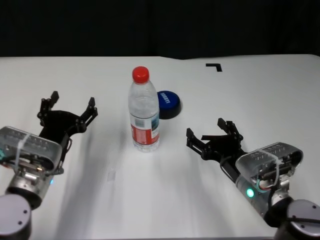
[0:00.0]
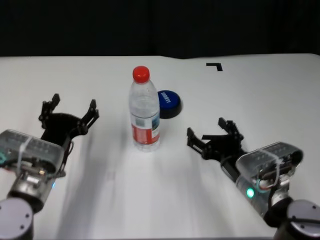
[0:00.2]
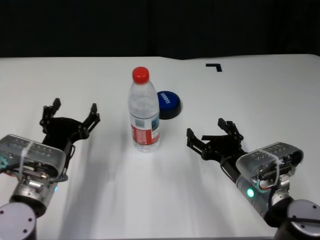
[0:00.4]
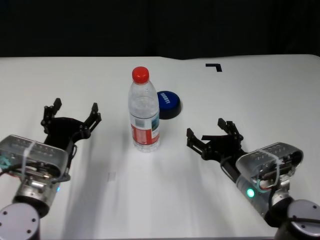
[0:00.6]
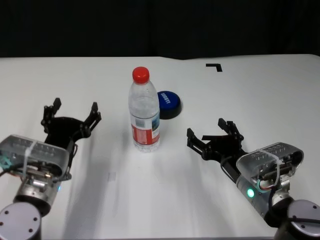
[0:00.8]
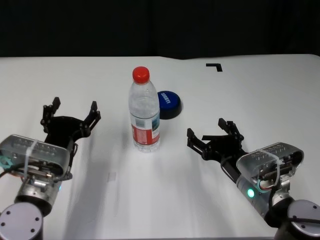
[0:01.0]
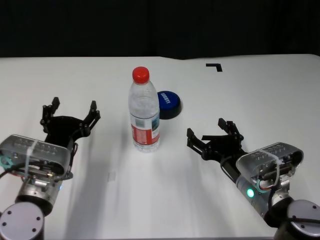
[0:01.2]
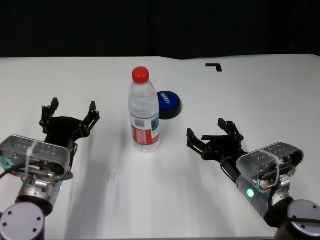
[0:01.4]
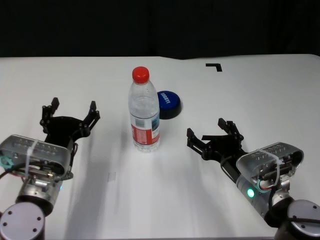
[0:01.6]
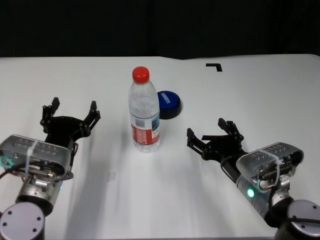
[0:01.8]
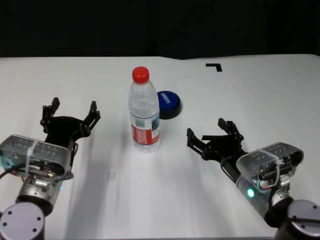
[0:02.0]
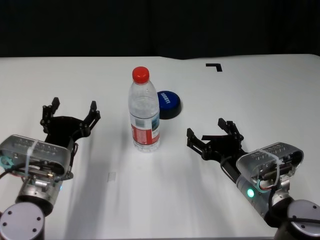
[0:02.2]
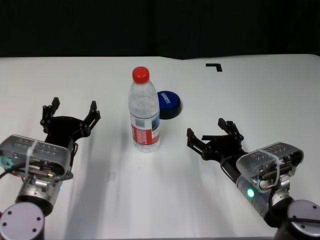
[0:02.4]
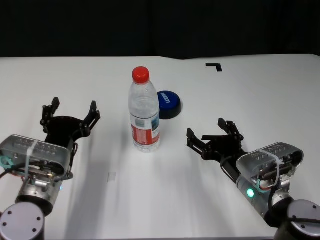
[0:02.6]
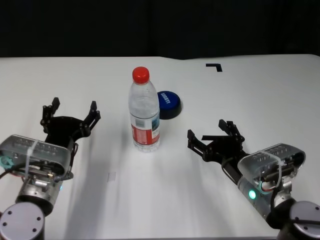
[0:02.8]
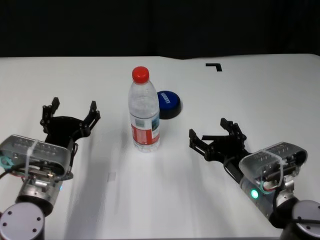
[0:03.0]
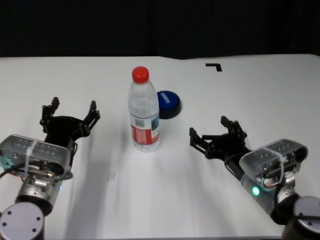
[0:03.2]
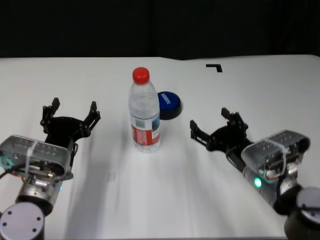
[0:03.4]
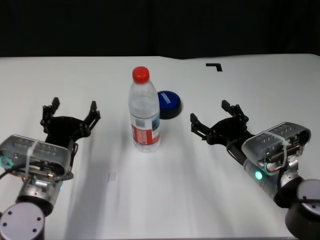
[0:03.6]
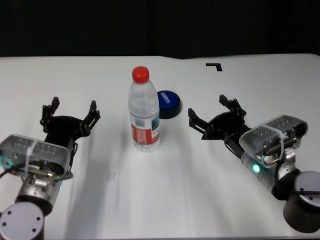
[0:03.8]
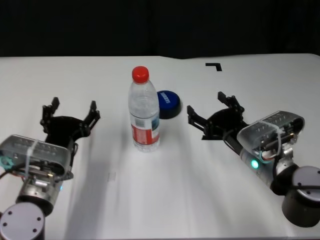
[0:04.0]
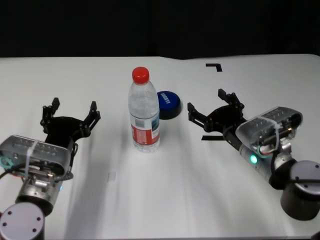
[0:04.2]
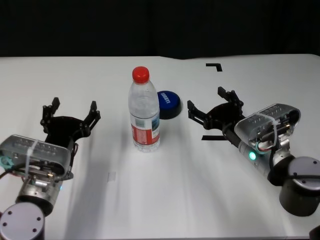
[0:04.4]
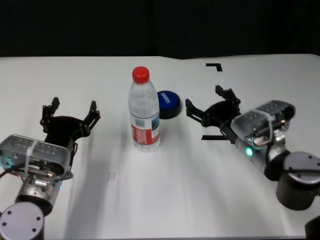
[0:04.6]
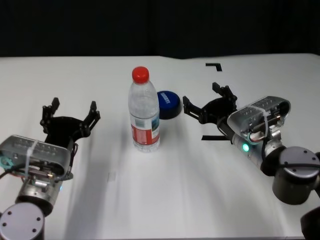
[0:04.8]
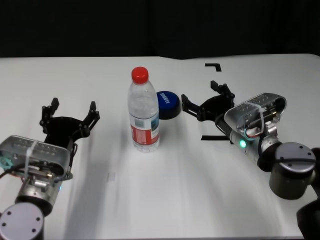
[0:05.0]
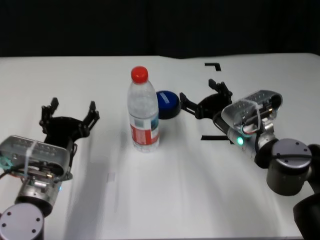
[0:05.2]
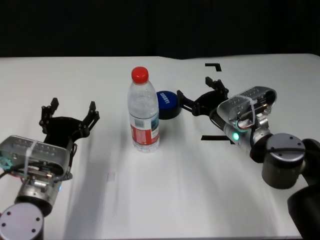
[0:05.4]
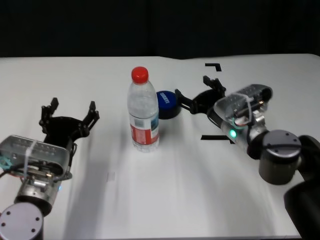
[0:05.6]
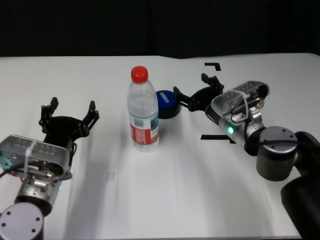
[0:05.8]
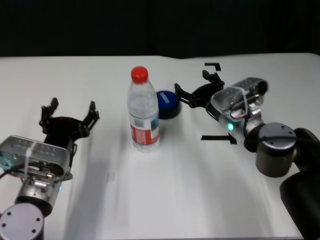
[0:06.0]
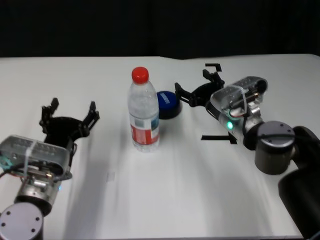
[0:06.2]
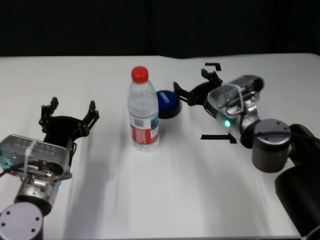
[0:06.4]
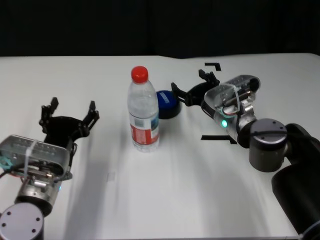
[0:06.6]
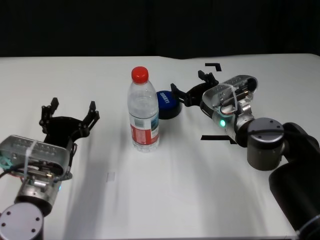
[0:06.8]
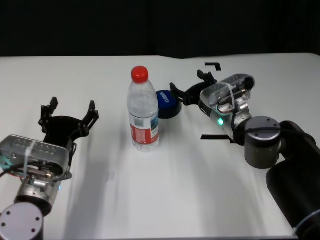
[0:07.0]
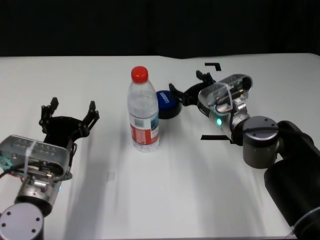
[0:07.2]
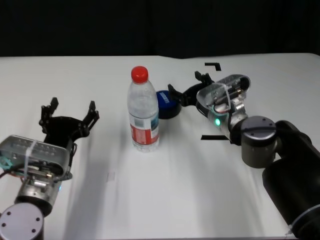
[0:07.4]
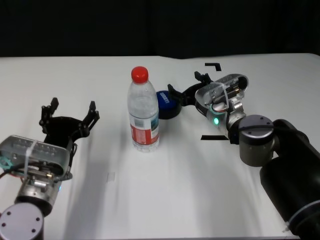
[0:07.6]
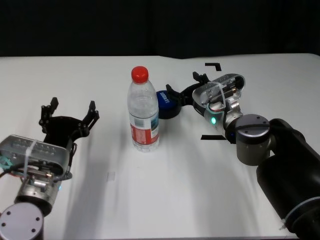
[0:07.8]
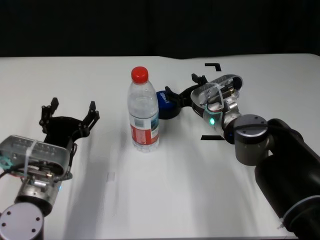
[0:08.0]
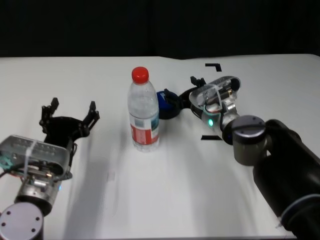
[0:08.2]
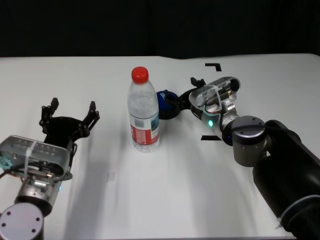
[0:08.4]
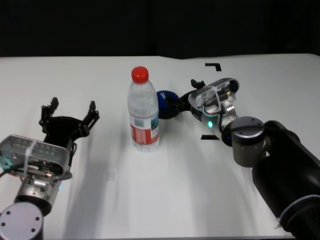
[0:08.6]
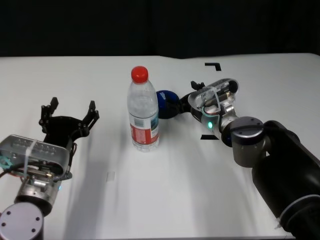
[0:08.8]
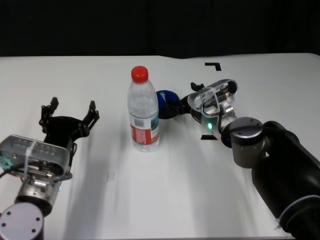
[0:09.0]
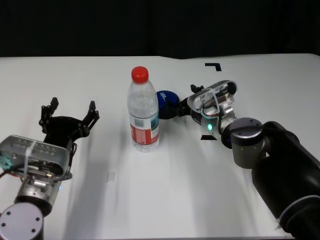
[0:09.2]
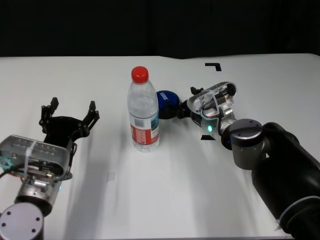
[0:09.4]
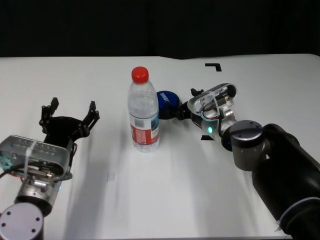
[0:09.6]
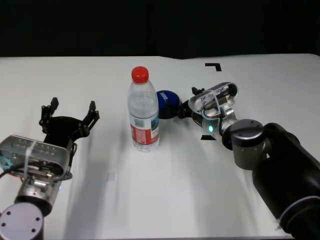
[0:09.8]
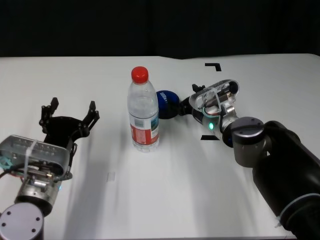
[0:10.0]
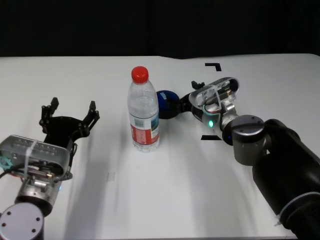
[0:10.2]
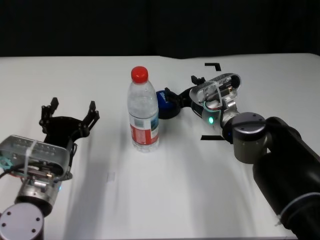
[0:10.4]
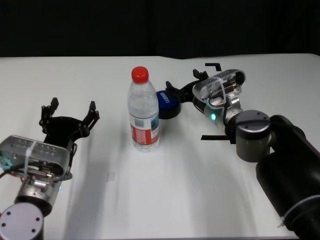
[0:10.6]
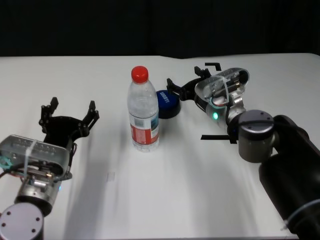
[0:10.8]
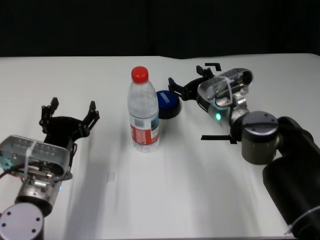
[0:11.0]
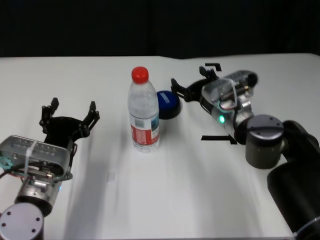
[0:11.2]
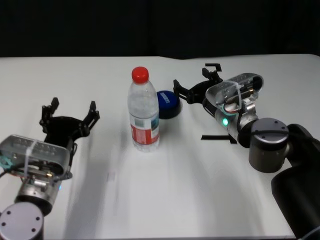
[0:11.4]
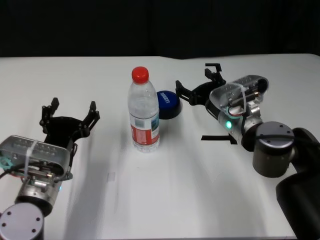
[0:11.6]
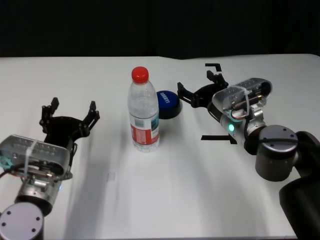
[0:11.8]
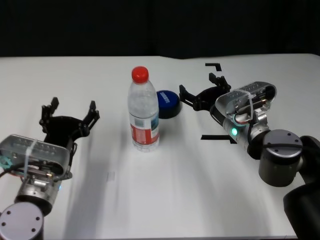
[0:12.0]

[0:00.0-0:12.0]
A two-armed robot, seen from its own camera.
Task of the whole recording: after avoiding the water bottle on the table, press the button.
Step, 0:00.0 to 0:10.2: Press the button blocked by the bottle with right gripper.

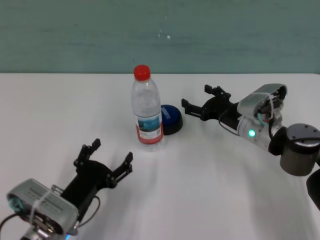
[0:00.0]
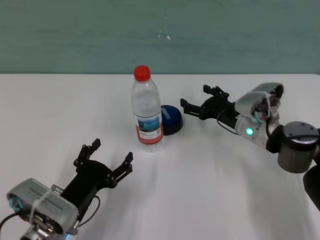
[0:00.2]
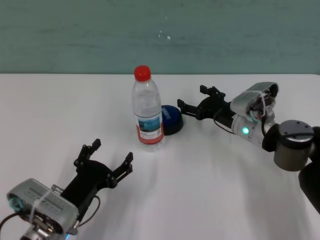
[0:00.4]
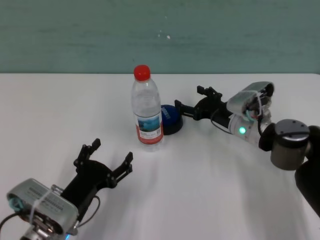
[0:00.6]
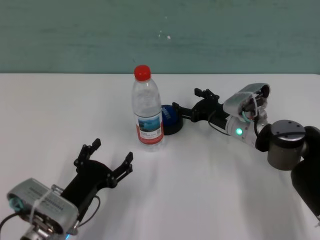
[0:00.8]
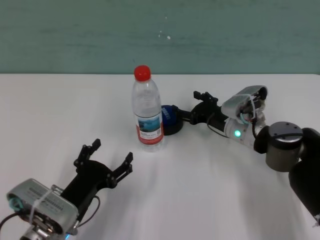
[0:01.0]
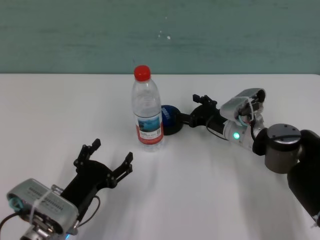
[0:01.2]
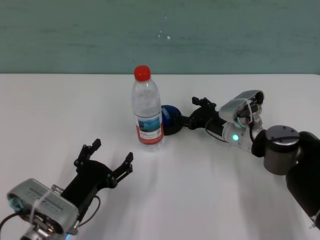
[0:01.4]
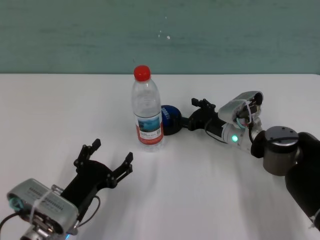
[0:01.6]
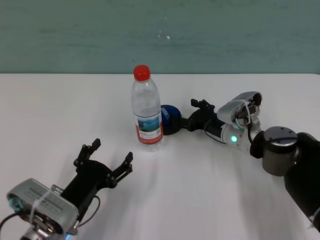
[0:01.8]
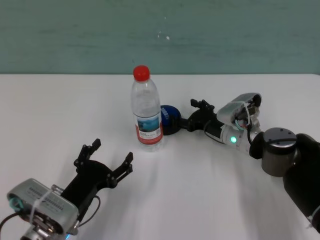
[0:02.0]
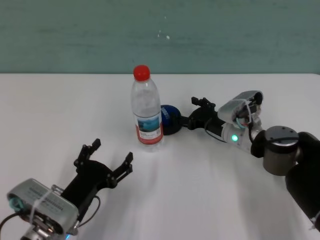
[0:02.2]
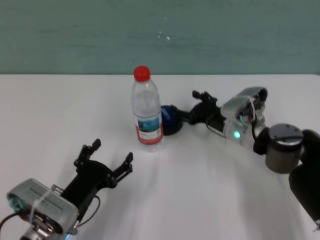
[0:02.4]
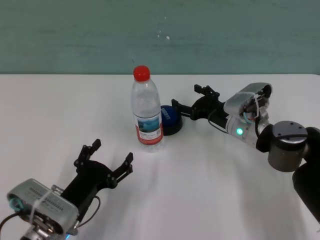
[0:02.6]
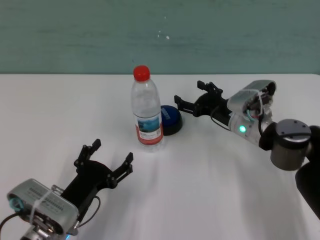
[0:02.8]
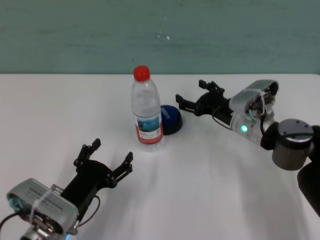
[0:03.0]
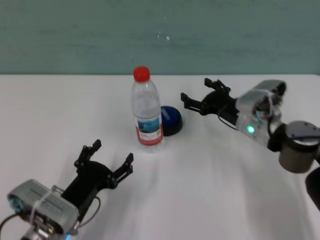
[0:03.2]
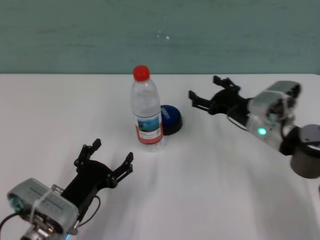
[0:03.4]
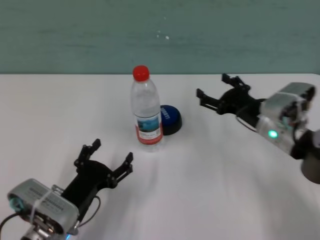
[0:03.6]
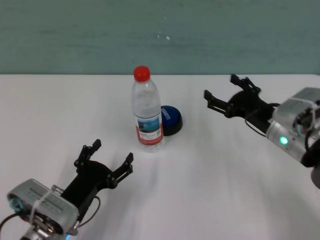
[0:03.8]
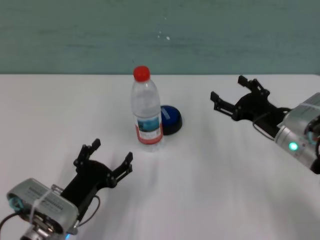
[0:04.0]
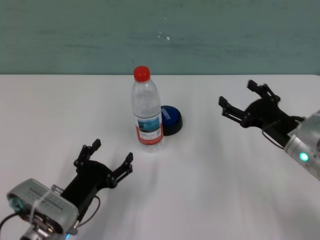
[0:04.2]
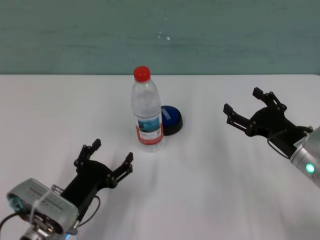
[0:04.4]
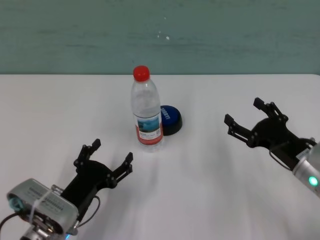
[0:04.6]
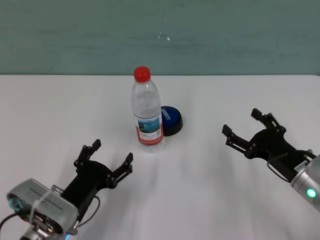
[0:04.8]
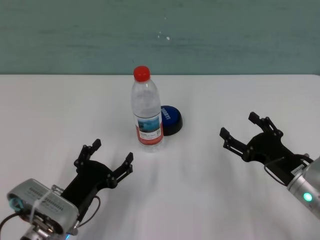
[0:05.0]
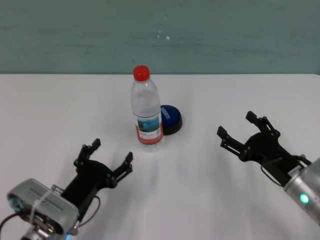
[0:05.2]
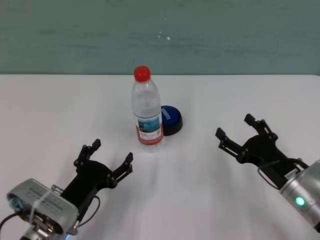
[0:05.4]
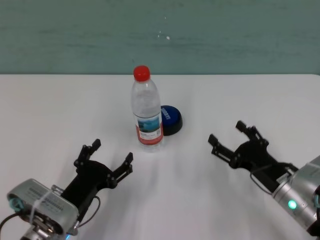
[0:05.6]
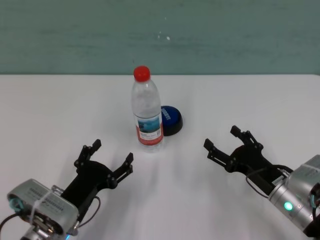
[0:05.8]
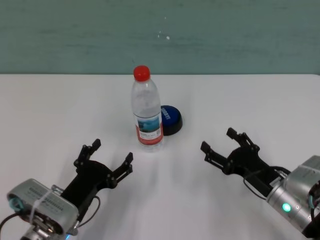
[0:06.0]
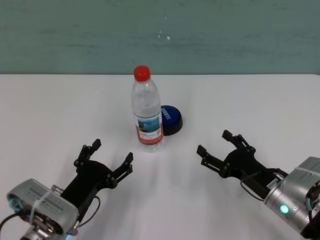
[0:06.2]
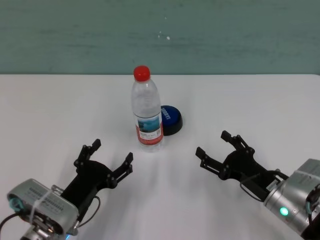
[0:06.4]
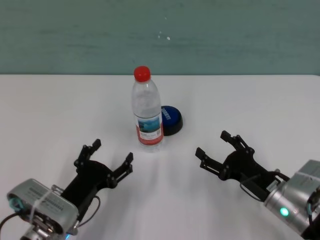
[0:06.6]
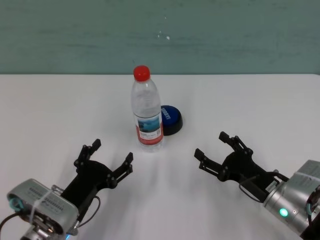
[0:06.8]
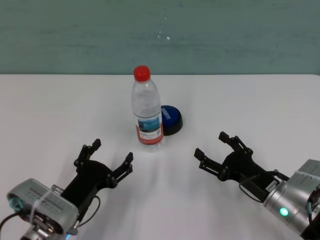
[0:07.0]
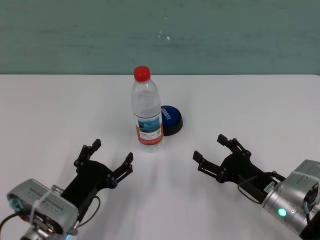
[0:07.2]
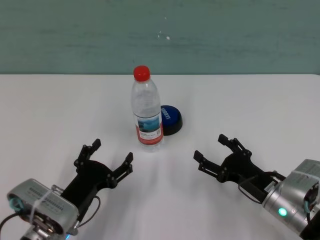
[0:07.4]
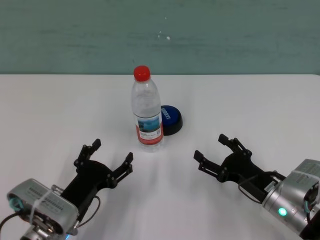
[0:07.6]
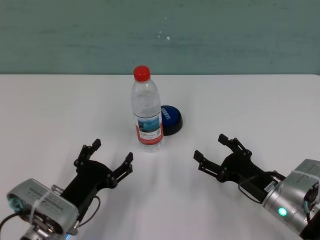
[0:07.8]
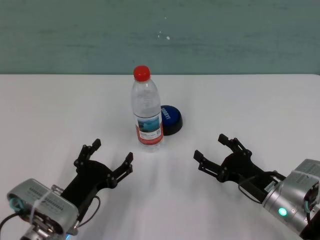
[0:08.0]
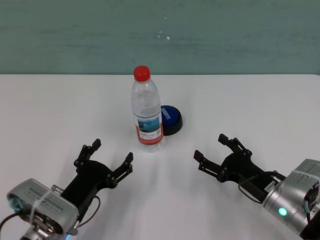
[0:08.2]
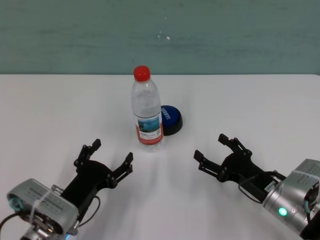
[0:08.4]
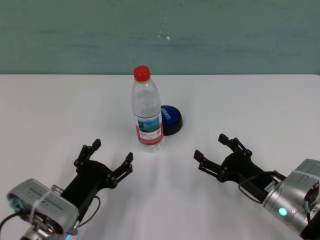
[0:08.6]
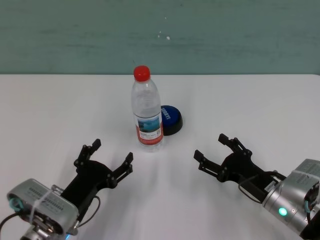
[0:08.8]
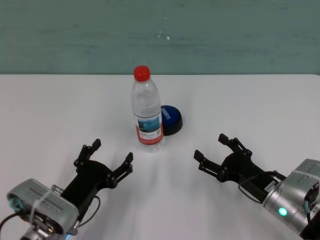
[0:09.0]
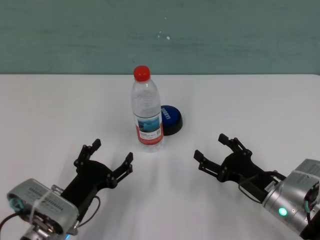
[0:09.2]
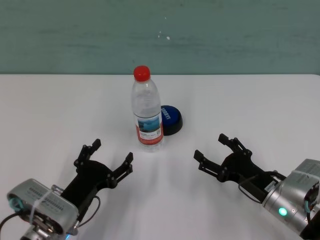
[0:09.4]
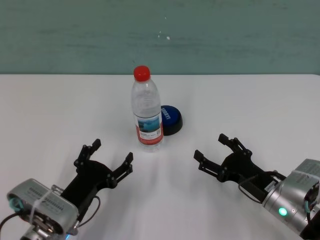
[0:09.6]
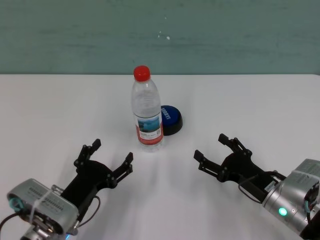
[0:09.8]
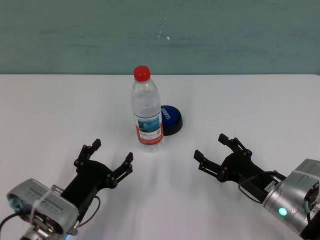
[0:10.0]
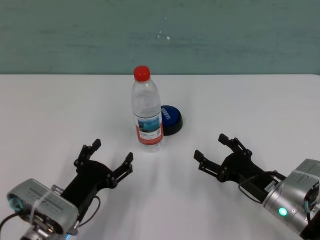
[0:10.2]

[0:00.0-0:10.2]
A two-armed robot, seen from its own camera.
Task of the whole recording: after avoiding the water bottle on the table, press the button.
Step, 0:00.0 to 0:02.4: Press the button blocked by the bottle with right gripper.
